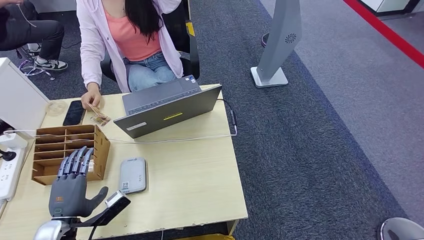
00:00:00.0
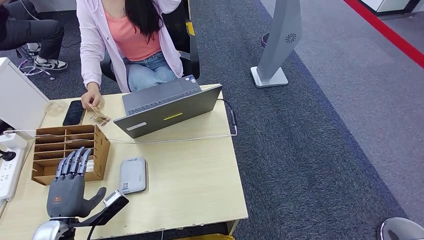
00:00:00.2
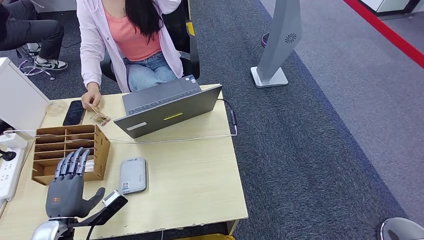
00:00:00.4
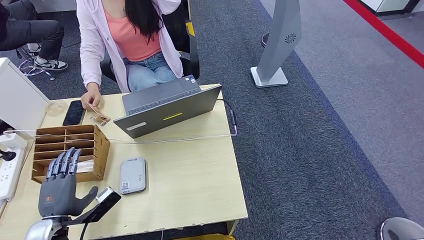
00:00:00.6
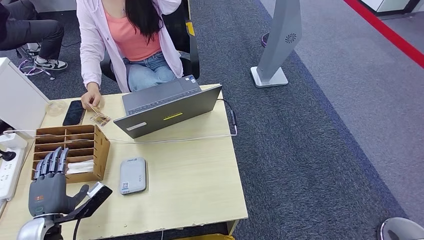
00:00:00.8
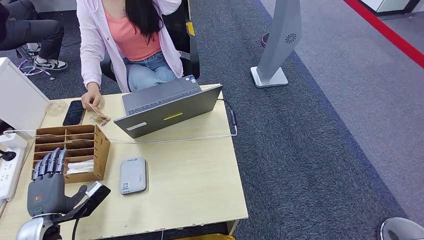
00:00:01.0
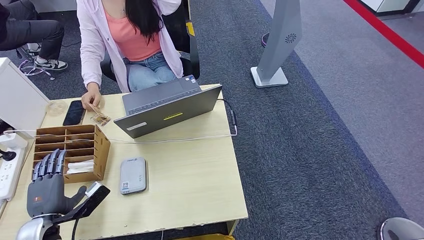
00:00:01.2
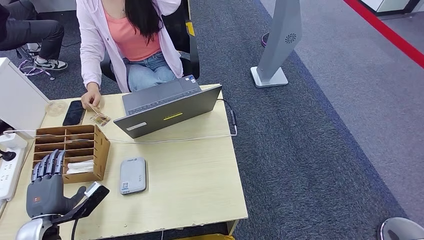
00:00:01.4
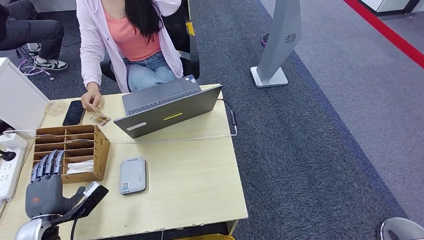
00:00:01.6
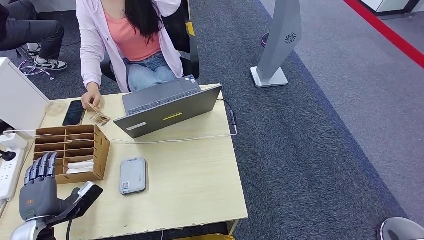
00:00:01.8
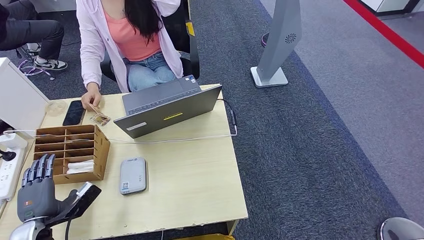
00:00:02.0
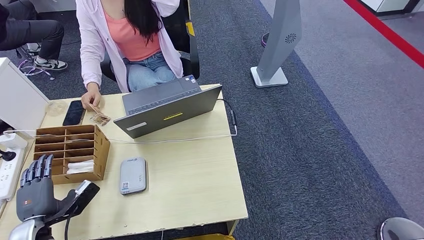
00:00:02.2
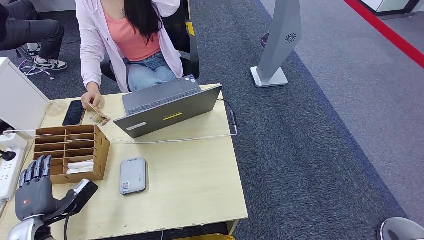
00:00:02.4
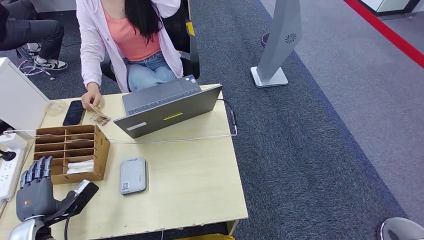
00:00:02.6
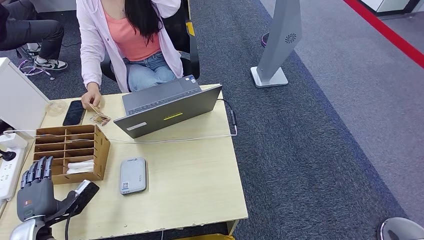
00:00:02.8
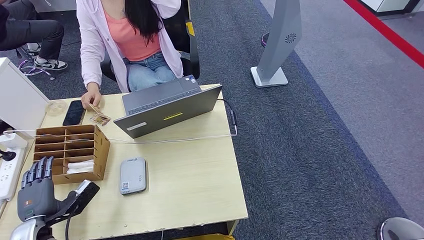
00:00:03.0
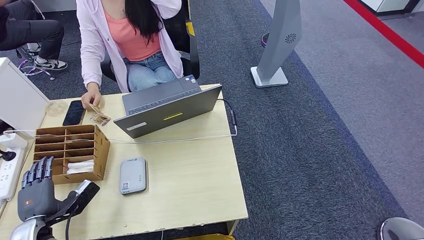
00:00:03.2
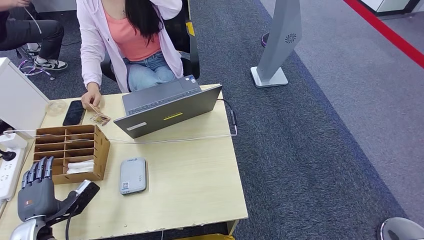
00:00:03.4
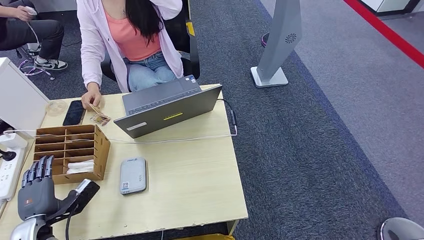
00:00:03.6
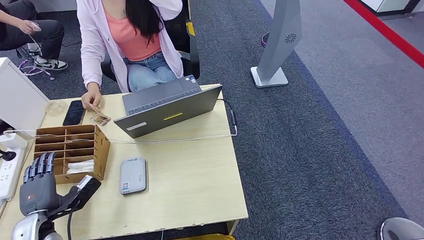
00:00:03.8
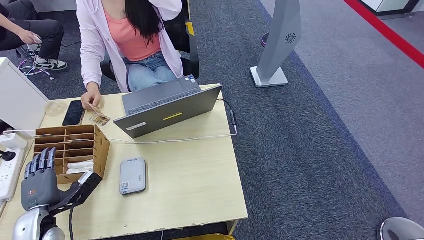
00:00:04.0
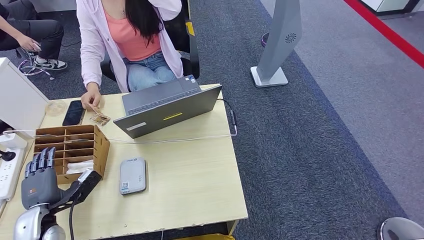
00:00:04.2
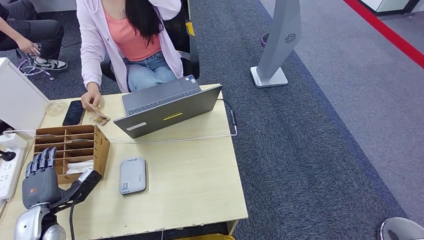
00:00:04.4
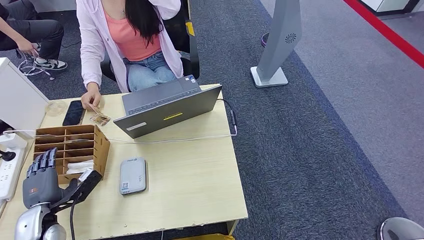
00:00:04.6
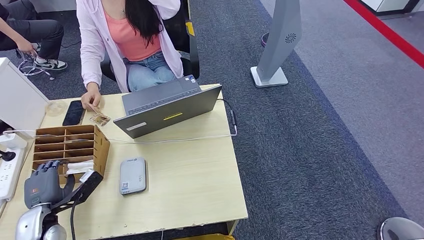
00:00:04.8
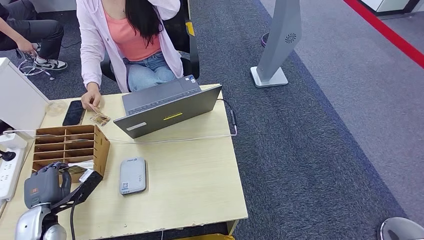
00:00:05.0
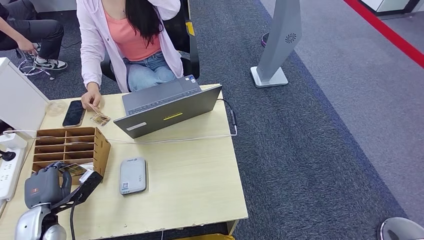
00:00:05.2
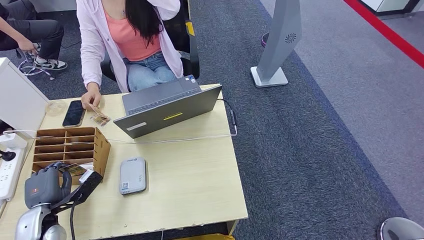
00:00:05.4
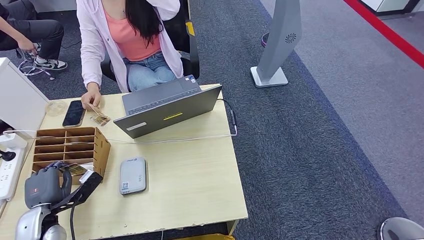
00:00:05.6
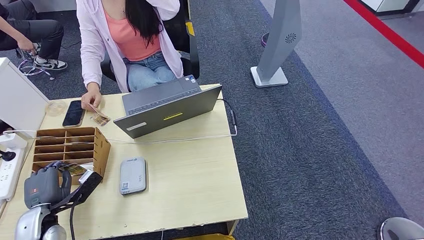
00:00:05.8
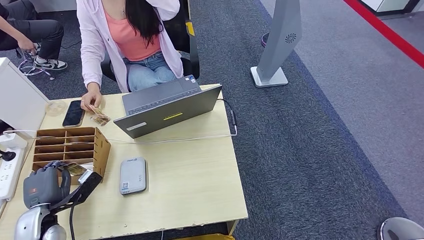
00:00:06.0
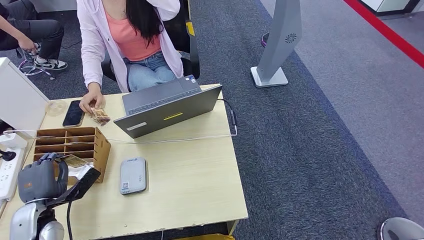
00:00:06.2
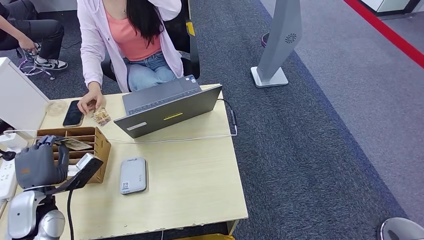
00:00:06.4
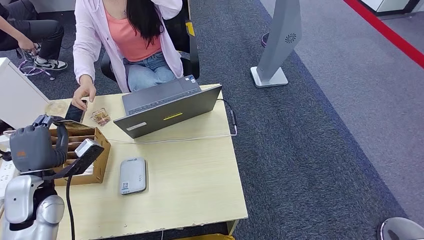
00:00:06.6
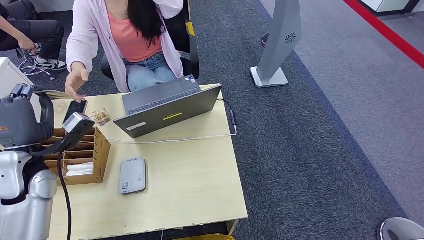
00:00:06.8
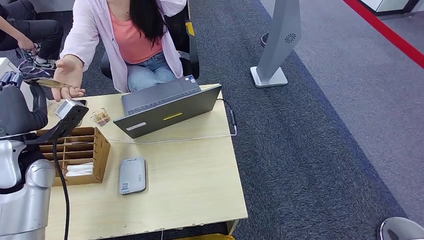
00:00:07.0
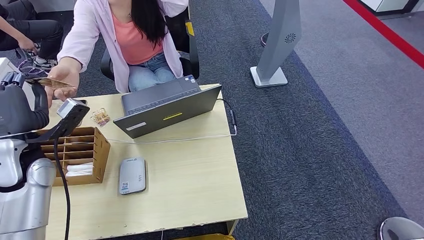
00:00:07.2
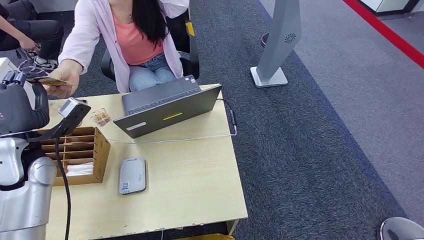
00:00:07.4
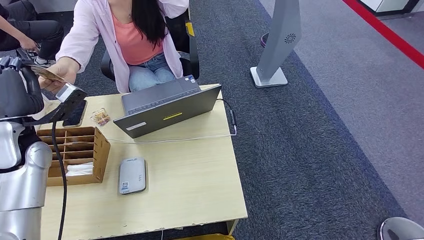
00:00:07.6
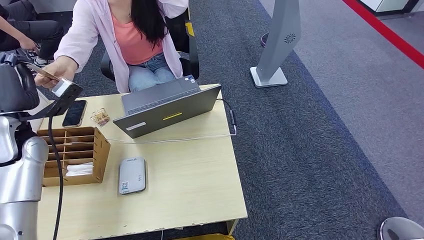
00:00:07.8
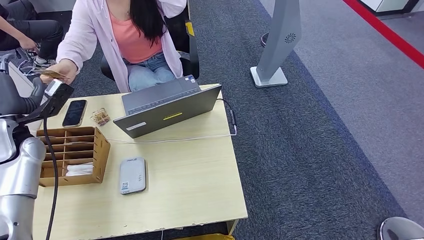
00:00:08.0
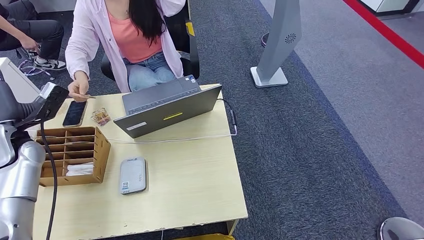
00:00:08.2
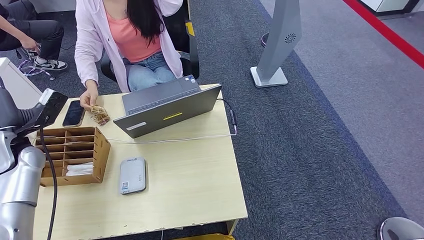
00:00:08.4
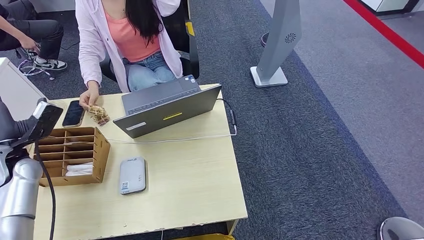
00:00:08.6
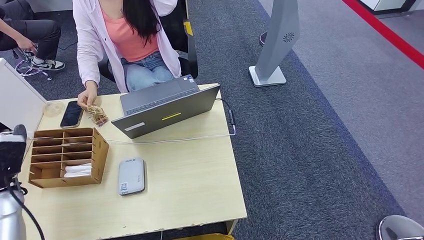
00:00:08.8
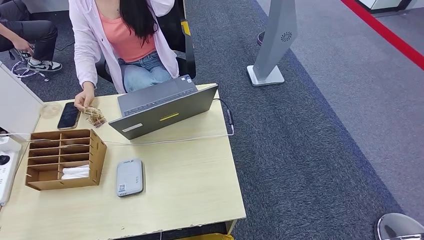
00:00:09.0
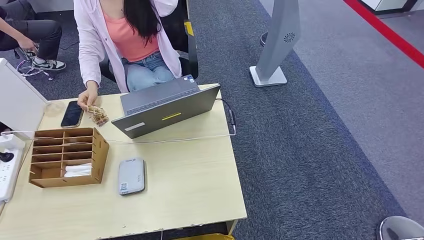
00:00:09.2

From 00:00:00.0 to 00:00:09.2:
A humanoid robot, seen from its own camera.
Step, from 00:00:00.0 to 00:00:05.4: Pick up the room key from the key card box.
Step, from 00:00:05.8 to 00:00:09.0: Hand the room key to the person.
From 00:00:00.0 to 00:00:01.6: The left hand moves some 5 cm.
From 00:00:01.6 to 00:00:06.2: The hands make only small movements.
From 00:00:06.2 to 00:00:07.6: The left hand travels upward and forward by some 20 cm.
